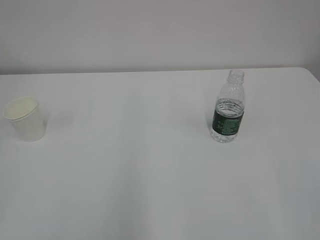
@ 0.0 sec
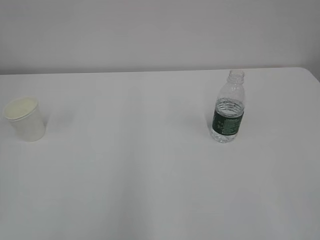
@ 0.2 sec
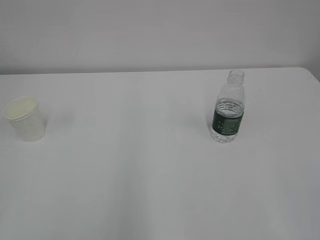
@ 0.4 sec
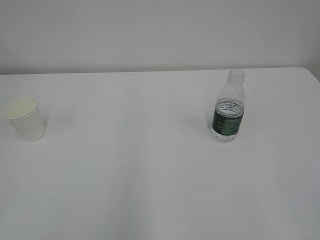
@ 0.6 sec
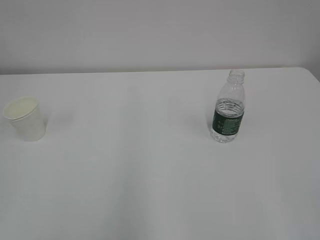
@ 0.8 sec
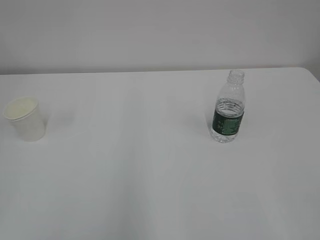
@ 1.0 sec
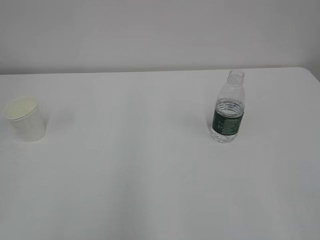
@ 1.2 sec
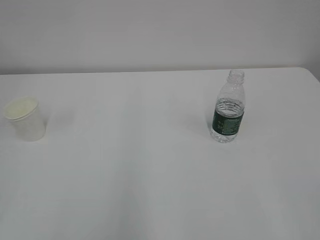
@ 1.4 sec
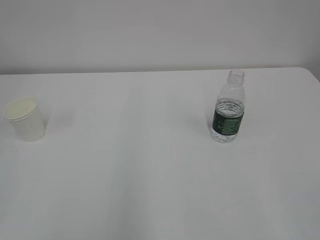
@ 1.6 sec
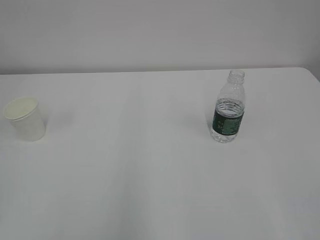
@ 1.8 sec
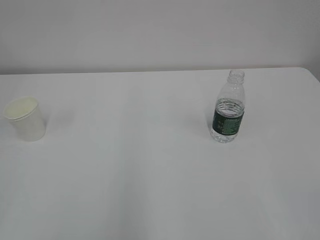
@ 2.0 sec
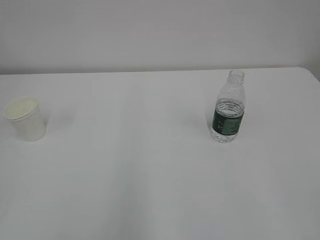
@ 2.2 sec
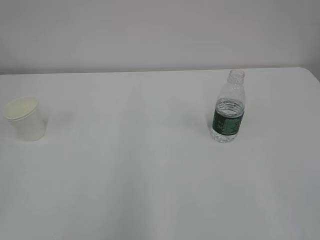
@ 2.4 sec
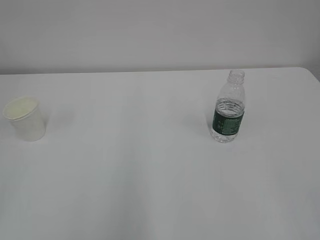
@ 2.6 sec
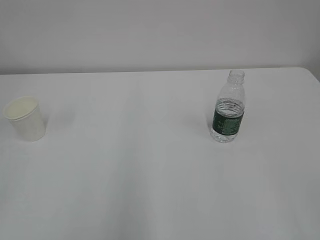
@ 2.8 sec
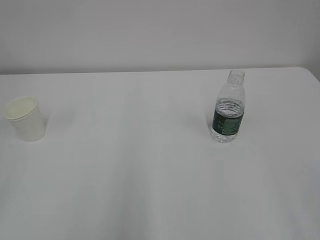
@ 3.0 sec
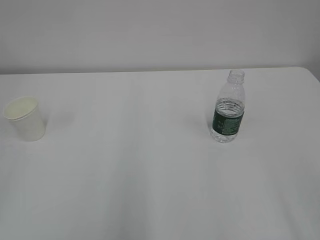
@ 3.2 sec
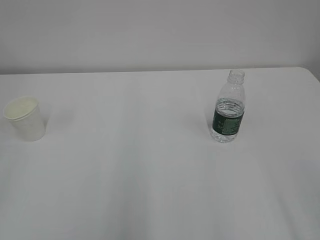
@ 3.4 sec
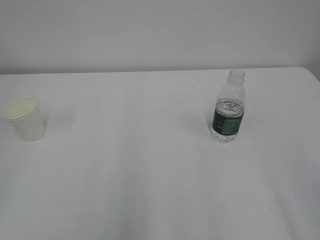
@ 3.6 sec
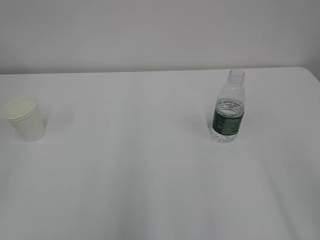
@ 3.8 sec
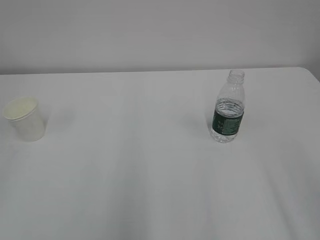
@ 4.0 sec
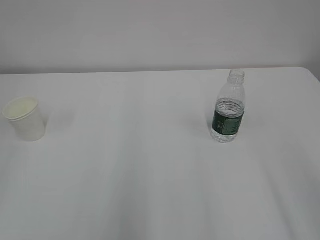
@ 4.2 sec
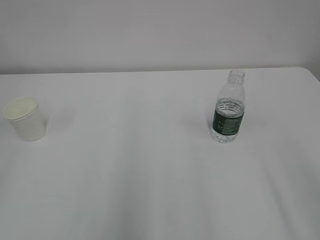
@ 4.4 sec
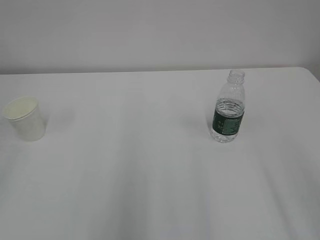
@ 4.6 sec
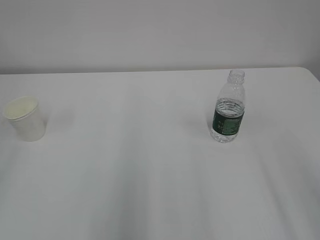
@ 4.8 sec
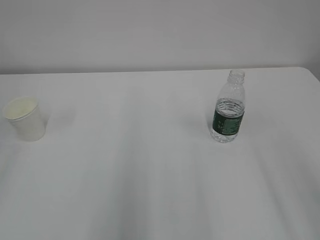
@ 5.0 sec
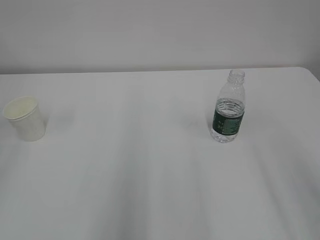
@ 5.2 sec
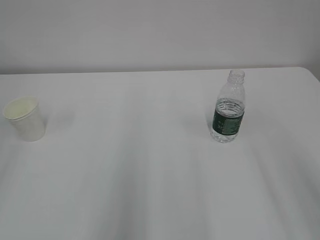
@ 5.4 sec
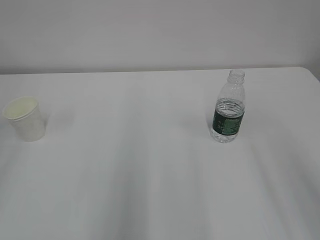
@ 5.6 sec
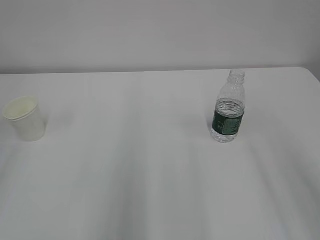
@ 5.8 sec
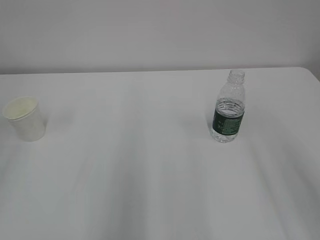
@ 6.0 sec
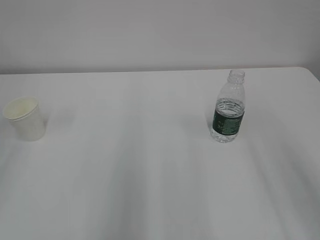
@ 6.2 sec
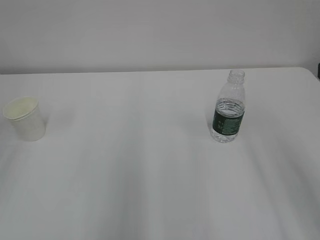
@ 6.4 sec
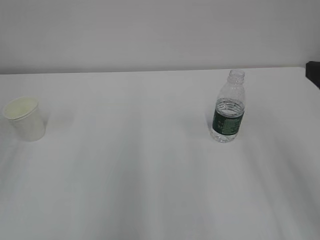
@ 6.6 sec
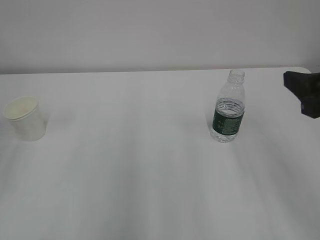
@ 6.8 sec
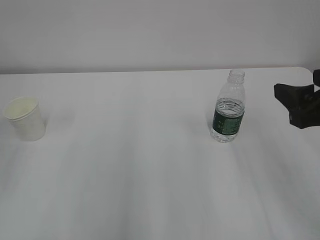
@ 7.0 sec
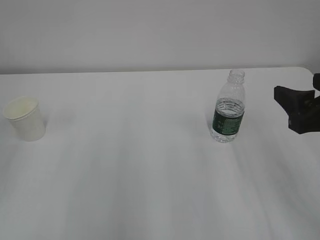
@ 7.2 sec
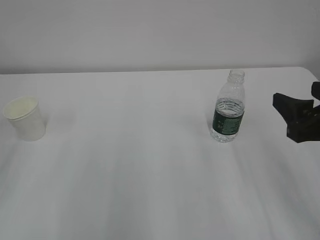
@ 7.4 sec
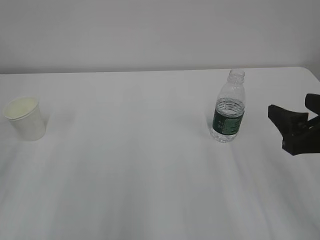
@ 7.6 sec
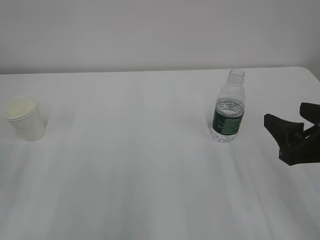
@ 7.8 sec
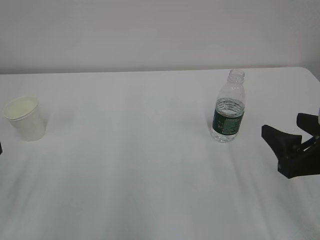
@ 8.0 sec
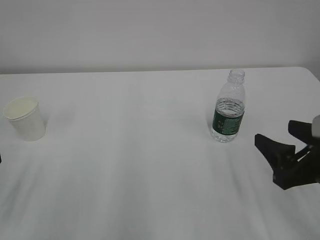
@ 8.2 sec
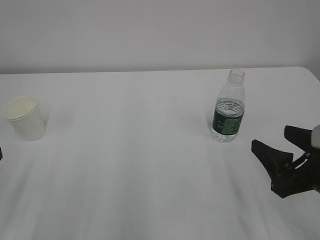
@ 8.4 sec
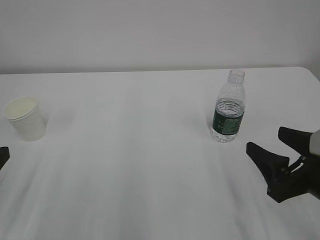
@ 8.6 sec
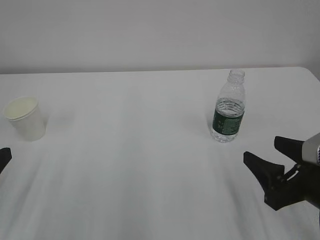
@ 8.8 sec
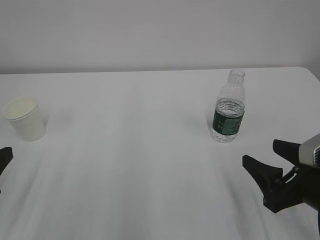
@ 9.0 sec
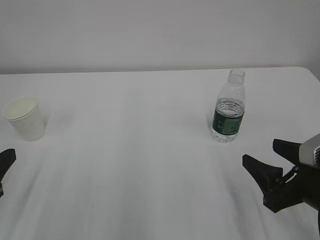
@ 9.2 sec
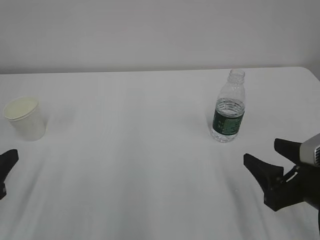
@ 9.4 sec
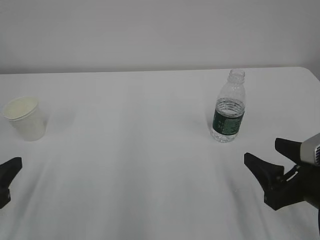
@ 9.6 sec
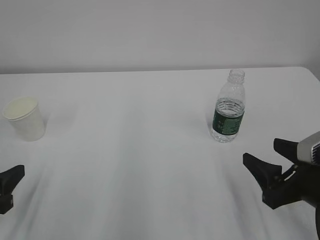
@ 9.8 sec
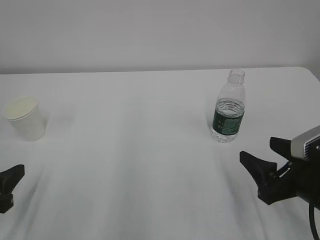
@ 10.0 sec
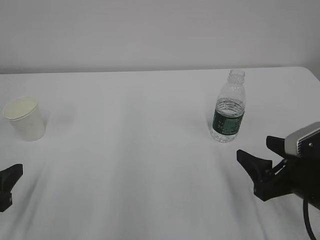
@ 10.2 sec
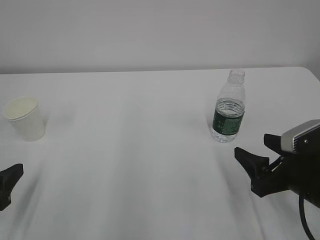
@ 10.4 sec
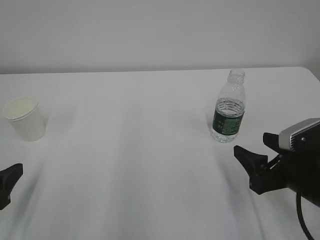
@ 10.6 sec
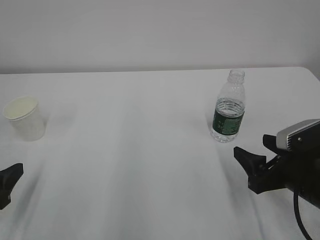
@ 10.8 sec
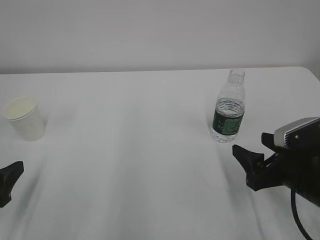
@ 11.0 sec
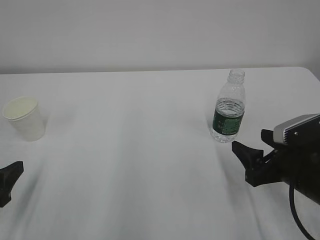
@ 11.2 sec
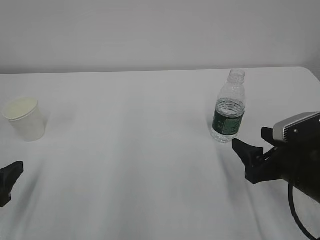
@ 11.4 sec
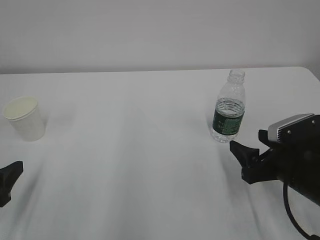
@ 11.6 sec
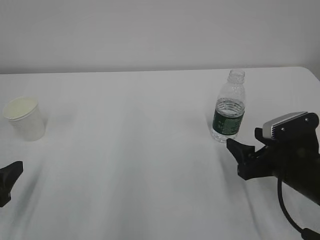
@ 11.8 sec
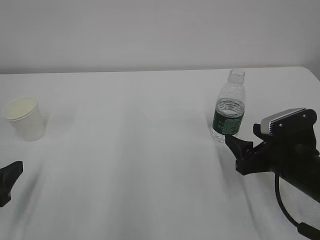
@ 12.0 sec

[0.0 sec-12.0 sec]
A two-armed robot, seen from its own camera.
6.0 sec to 7.6 sec: The right gripper travels downward by about 10 cm.
7.6 sec to 9.0 sec: The right gripper goes approximately 10 cm downward.
9.0 sec to 10.4 sec: The left gripper opens.
10.4 sec to 12.0 sec: The grippers stay close to where they were, moving slightly.

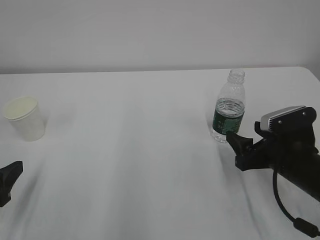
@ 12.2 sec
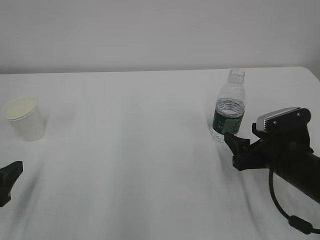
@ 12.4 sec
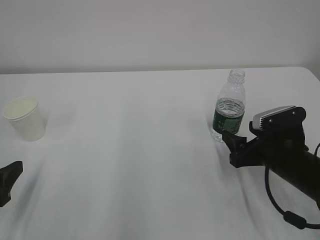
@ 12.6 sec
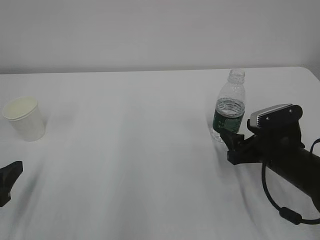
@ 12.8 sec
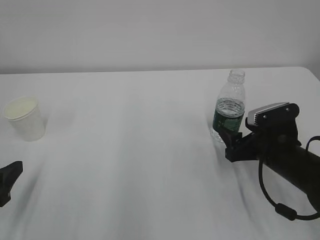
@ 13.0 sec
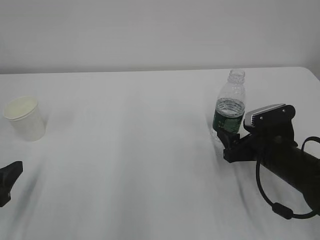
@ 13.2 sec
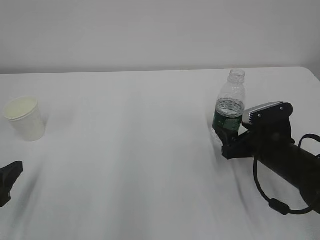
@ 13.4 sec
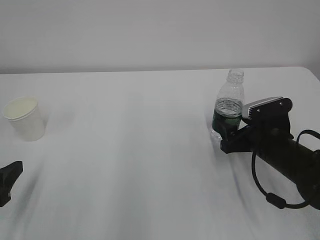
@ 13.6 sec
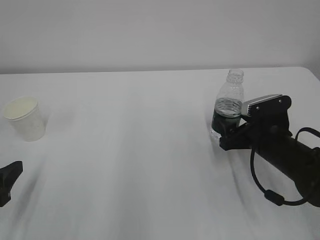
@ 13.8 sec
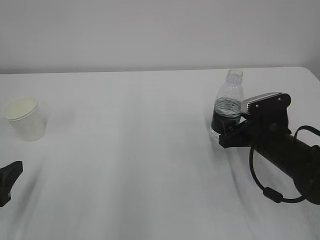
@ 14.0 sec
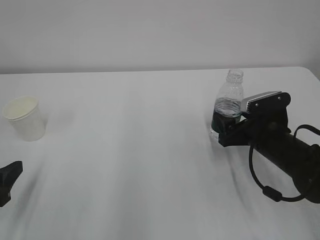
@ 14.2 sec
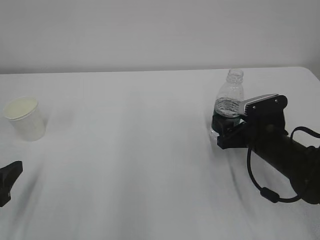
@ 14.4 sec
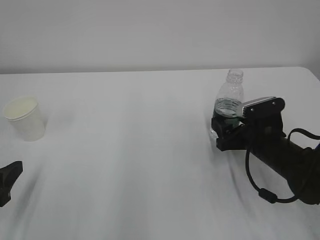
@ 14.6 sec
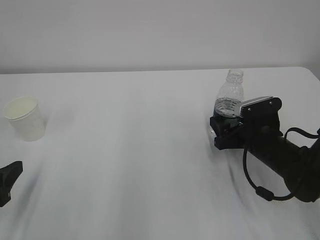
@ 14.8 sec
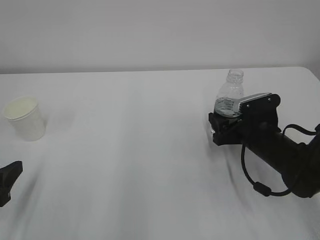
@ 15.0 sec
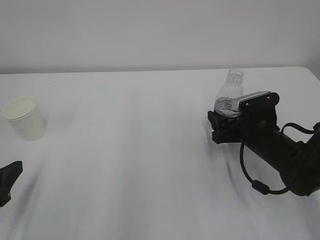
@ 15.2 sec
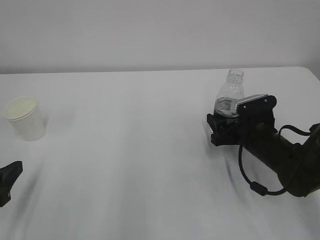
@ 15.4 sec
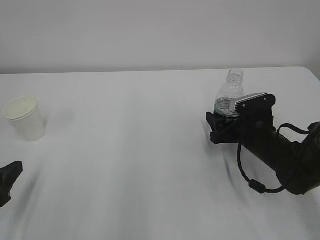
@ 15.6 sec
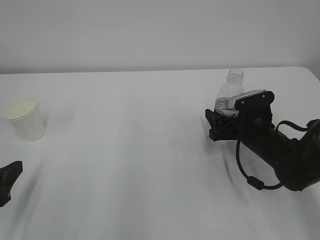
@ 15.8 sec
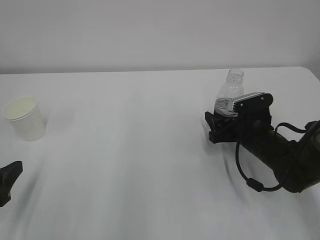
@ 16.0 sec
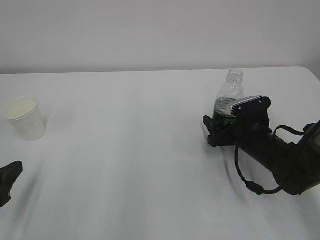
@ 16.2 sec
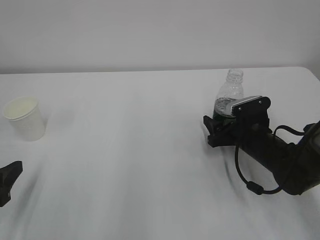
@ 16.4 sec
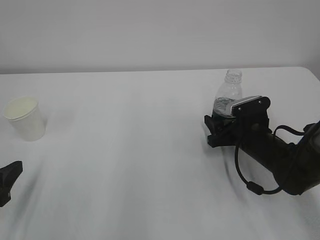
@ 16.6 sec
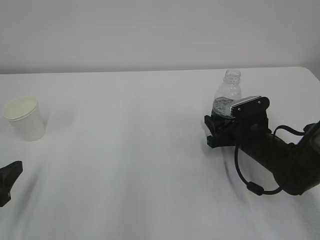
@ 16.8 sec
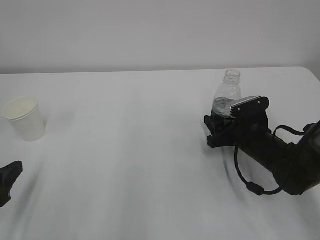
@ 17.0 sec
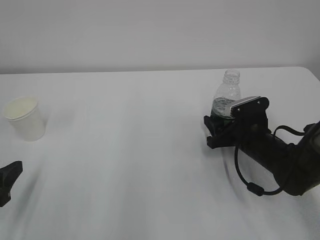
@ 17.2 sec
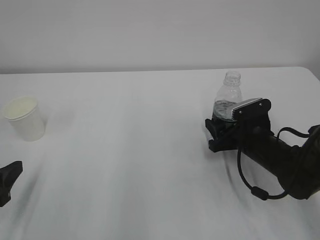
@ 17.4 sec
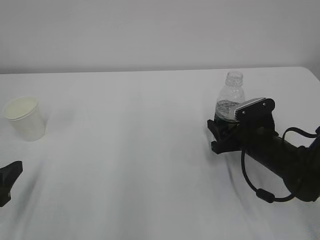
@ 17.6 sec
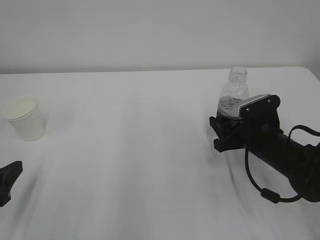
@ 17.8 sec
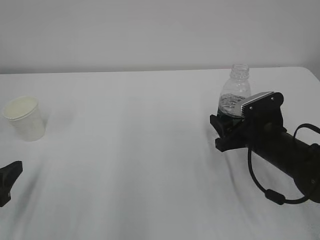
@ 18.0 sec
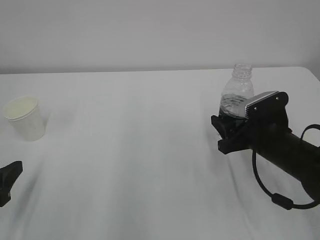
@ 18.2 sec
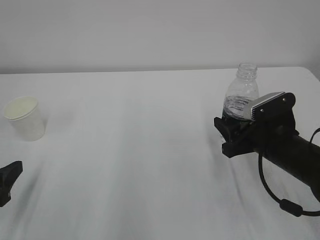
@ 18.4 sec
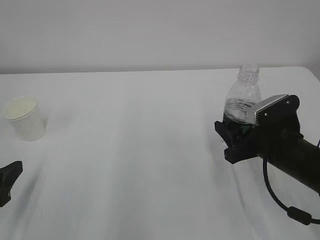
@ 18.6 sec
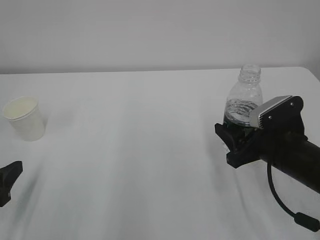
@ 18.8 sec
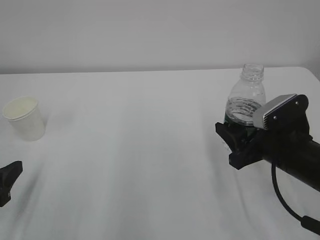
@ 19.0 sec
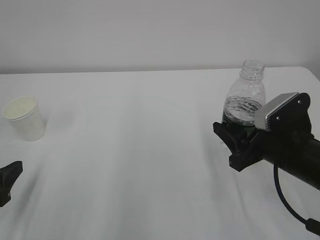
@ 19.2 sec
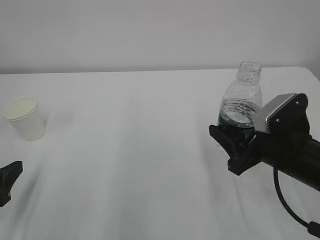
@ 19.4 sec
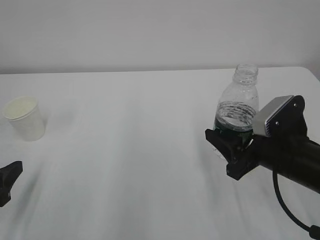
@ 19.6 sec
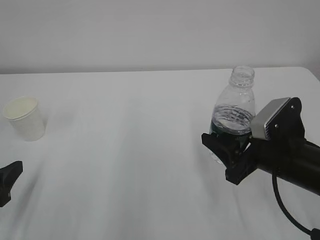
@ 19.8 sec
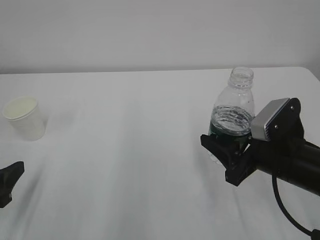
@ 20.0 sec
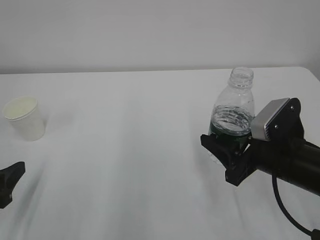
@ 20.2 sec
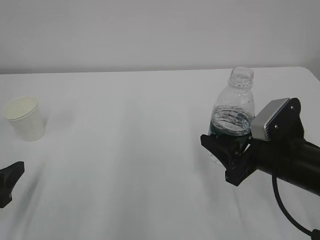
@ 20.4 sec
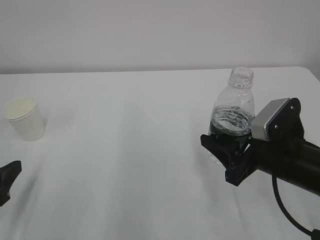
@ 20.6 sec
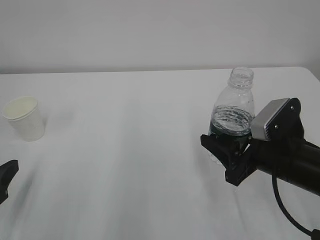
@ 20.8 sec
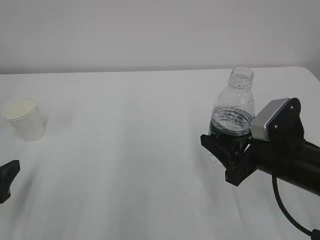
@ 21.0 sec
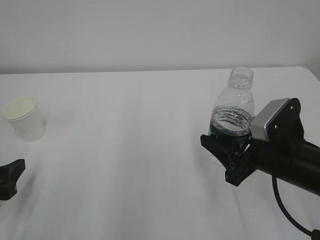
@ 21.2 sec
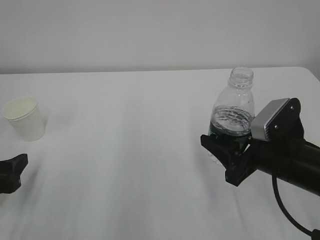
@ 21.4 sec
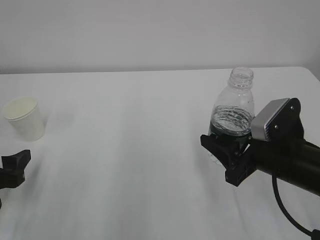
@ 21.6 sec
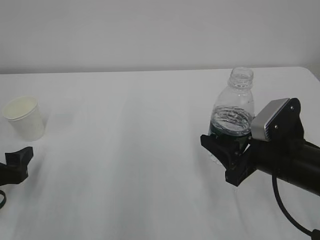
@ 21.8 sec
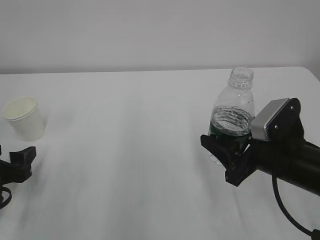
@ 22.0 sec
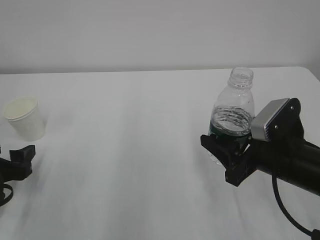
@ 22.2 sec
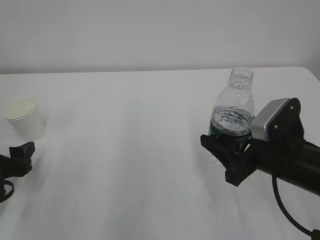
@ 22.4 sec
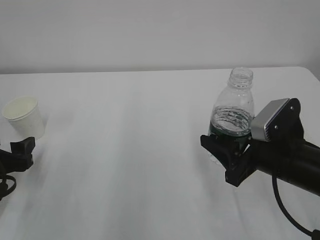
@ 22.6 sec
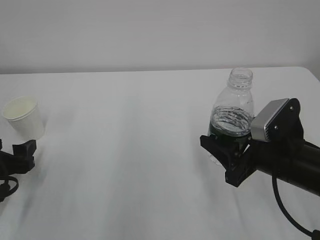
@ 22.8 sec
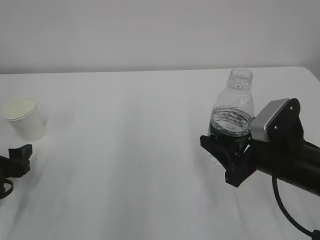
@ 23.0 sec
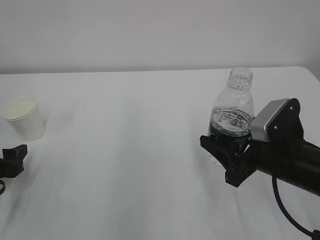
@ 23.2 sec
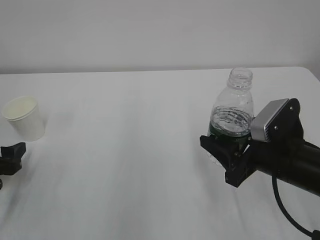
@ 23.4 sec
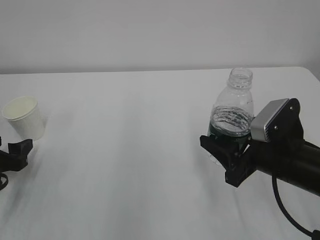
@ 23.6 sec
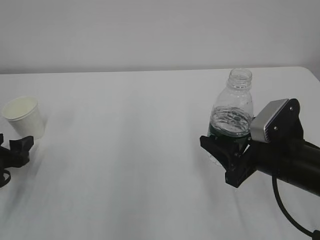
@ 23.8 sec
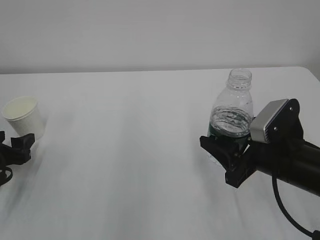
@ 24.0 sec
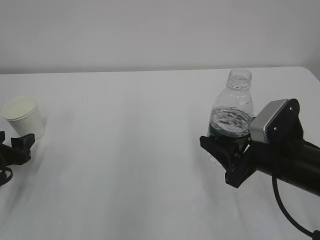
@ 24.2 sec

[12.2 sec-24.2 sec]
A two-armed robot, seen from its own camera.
12.2 sec to 13.8 sec: The right gripper moves forward, roughly 5 cm.
13.8 sec to 15.2 sec: The grippers move only a little.
15.2 sec to 16.6 sec: The right gripper closes its fingers.
16.6 sec to 18.2 sec: The right gripper moves approximately 5 cm.
18.2 sec to 19.8 sec: The right gripper moves backward, roughly 5 cm.
19.8 sec to 21.2 sec: There are only small adjustments of the grippers.
21.2 sec to 22.6 sec: The left gripper moves forward, approximately 5 cm.
22.6 sec to 24.2 sec: The left gripper changes place by approximately 5 cm.
